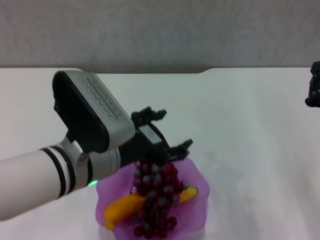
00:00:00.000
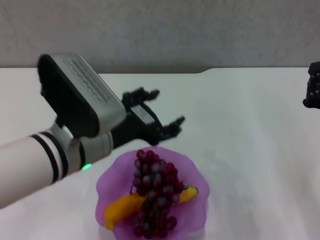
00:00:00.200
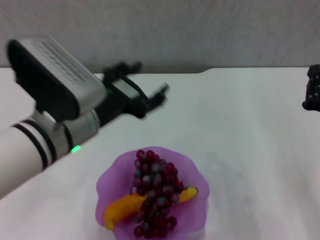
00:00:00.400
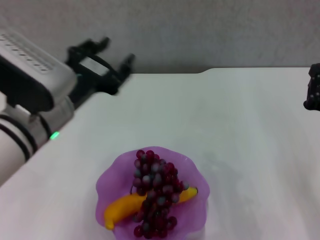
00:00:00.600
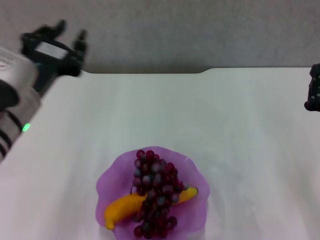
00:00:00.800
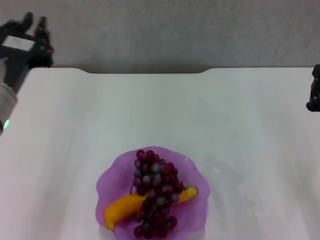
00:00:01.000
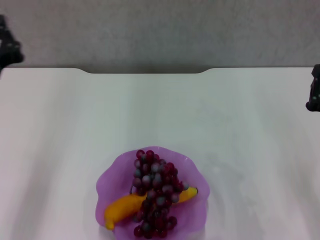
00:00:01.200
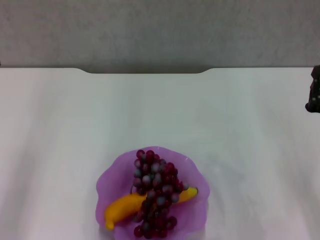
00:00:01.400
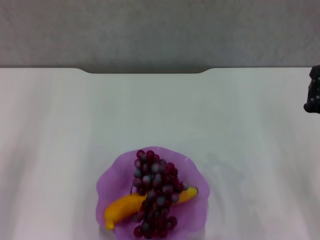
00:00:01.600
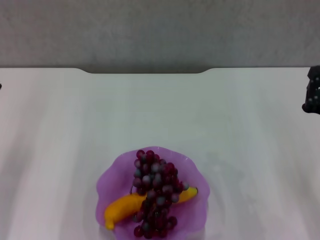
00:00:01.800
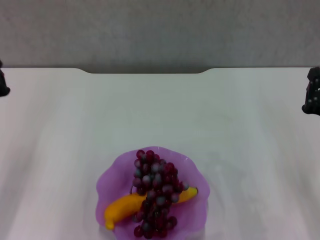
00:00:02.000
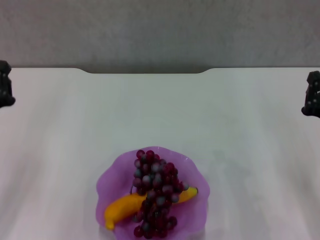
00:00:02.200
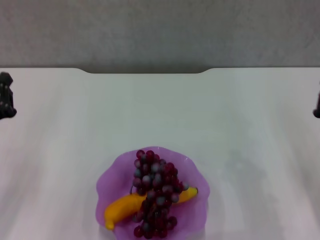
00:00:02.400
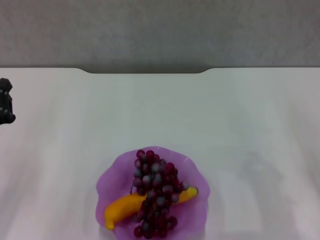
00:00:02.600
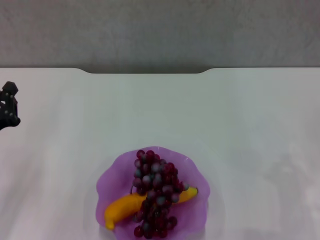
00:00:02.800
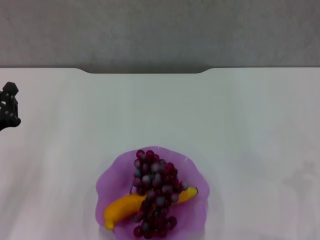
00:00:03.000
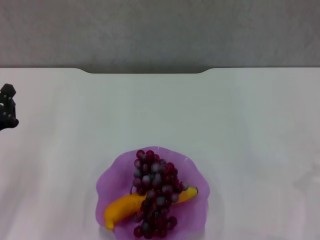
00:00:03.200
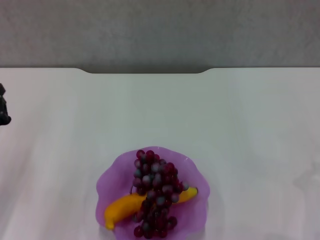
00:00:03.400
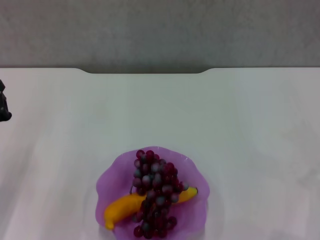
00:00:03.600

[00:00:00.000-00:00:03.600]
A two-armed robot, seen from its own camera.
00:00:00.000 to 00:00:01.800: The left gripper travels to the left by some 20 cm, and closes.
00:00:01.800 to 00:00:03.600: The left gripper shifts by roughly 5 cm, while the right gripper travels to the right and downward by some 10 cm.
